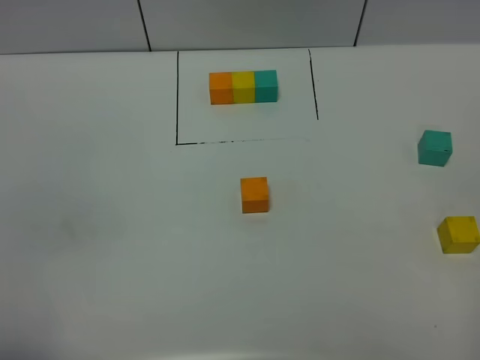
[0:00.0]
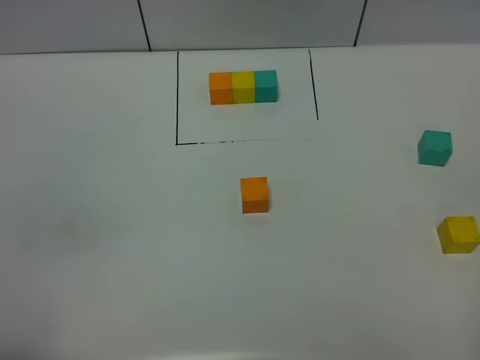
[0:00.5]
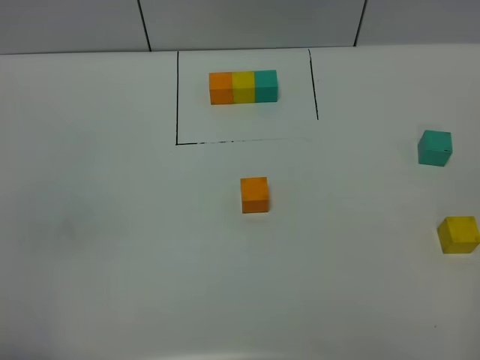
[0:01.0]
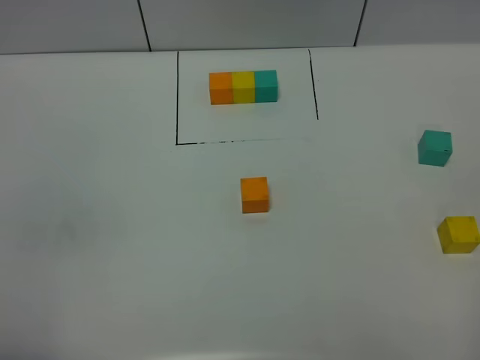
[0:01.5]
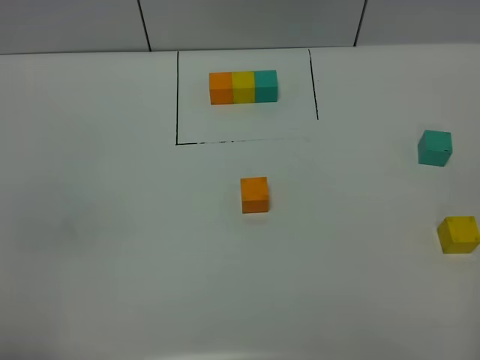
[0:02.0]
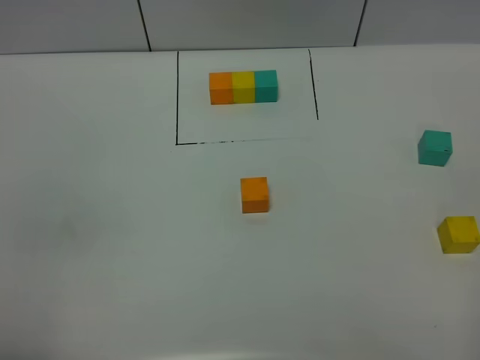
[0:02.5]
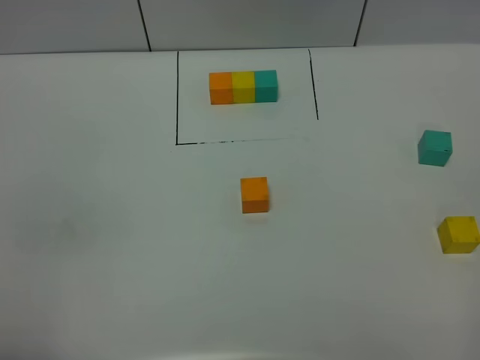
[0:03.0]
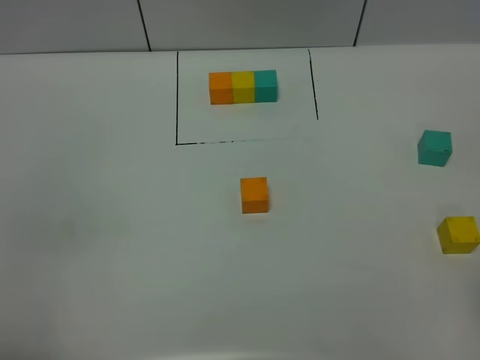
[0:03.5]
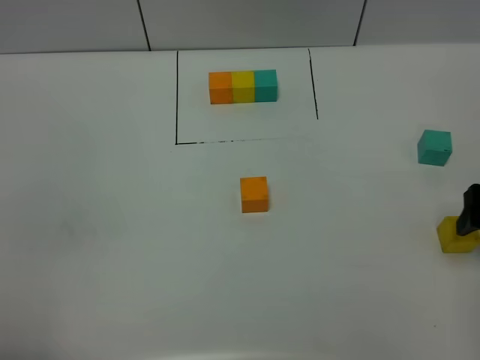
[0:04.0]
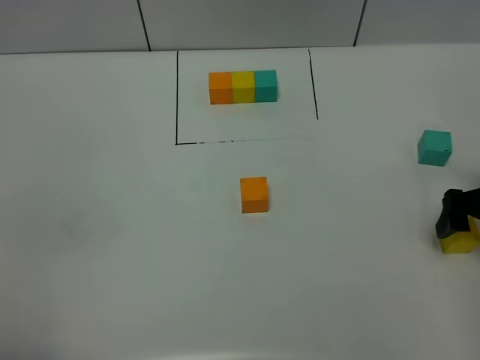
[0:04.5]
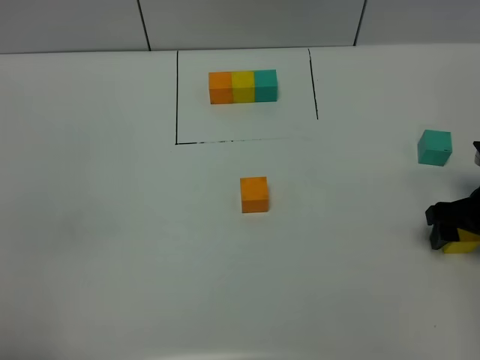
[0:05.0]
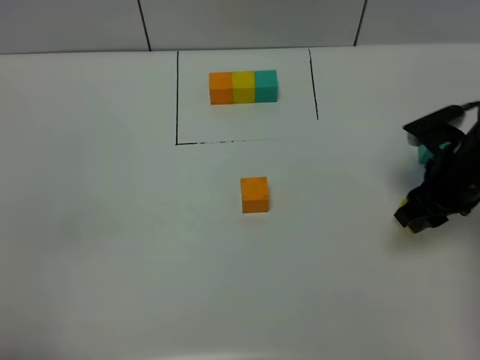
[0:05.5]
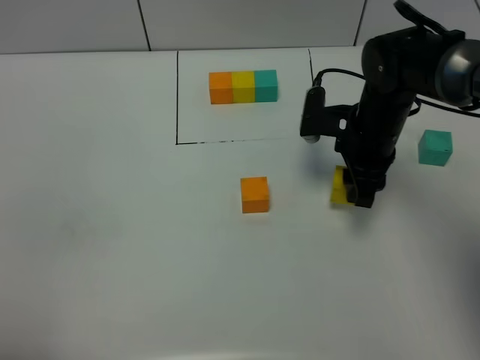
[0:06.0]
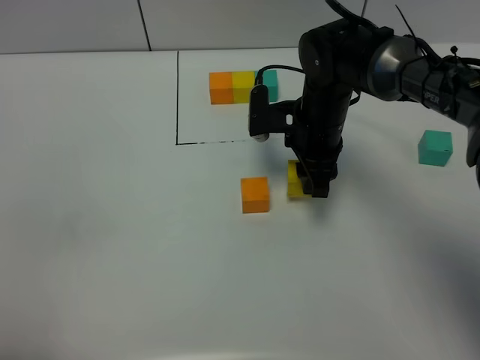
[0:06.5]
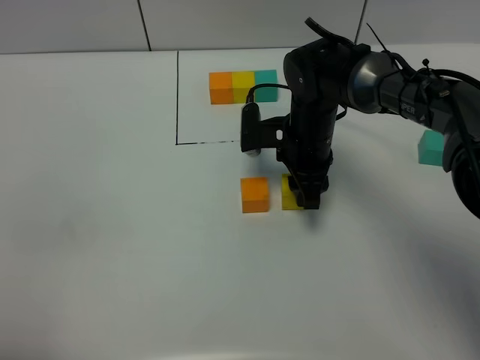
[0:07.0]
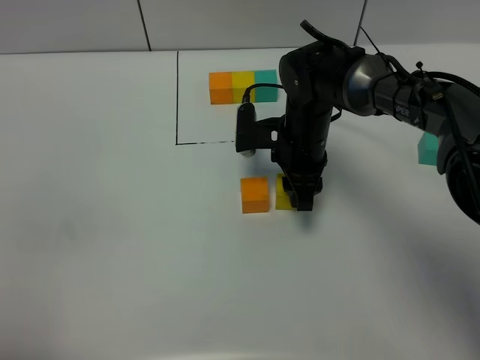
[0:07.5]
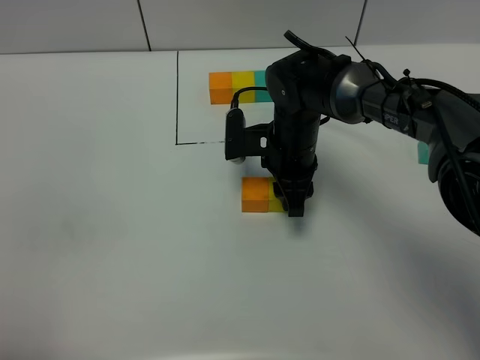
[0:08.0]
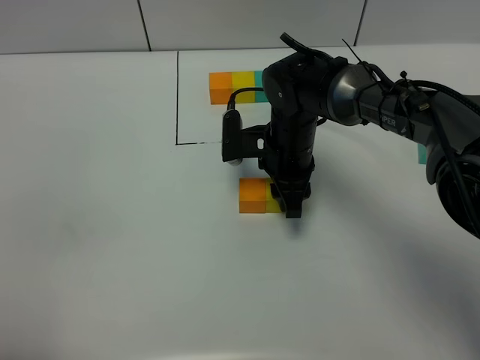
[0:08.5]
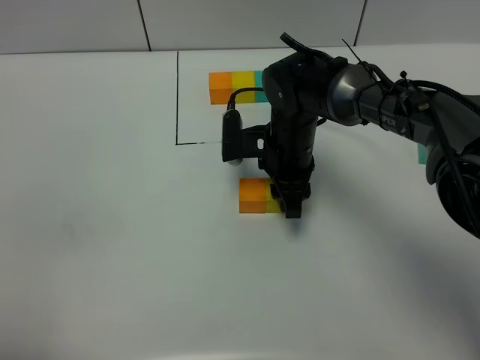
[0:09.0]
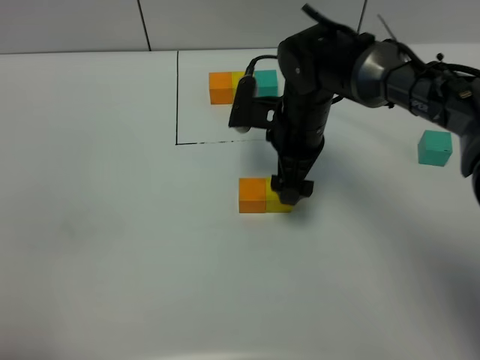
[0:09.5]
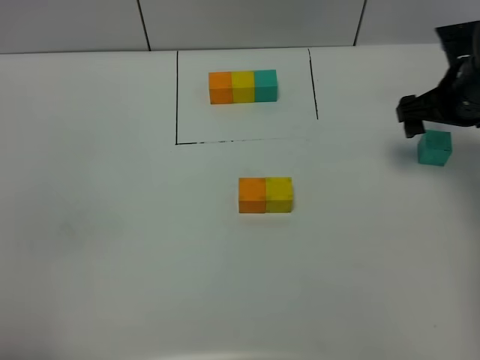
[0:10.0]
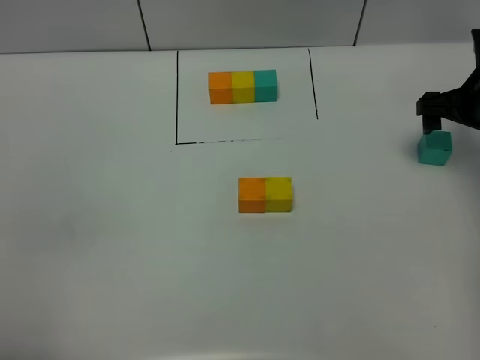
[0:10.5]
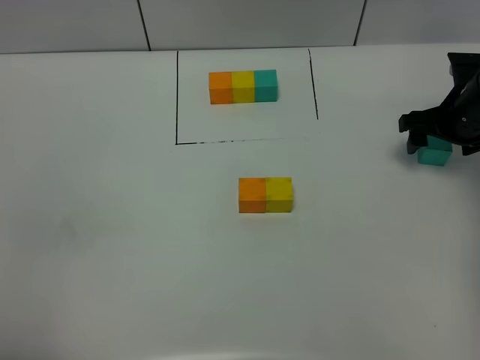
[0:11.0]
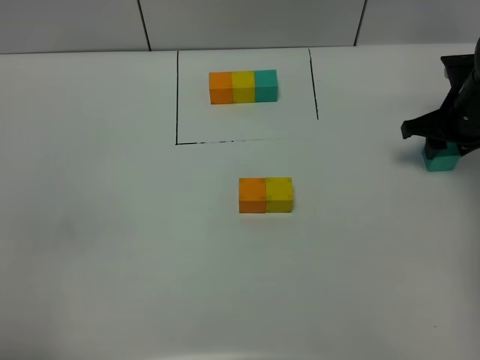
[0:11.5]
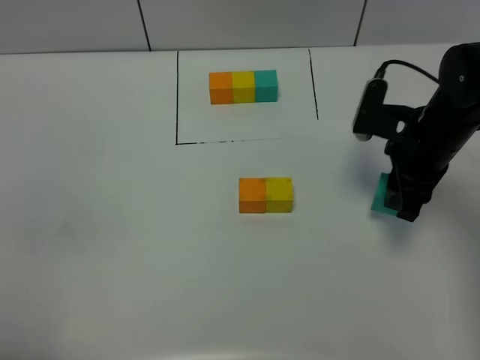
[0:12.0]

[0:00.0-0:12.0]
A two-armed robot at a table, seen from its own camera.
Task of the whole recording: According to the building block template in front, assemble the scattered blocks together.
Step, 0:00.0 to 0:09.0: Put the yellow build block on the right of the orange build block.
0:02.0 to 0:04.0: The right gripper is displaced forward by roughly 25 cm.
0:04.0 to 0:06.0: The right gripper heads to the left and forward, covering roughly 20 cm, and closes.
0:06.0 to 0:08.0: The right gripper shifts about 10 cm to the left.
0:08.0 to 0:10.0: The right gripper is displaced to the right by approximately 20 cm, and opens its fingers.
0:10.0 to 0:12.0: The right gripper is displaced to the left and backward by roughly 10 cm, and closes up.

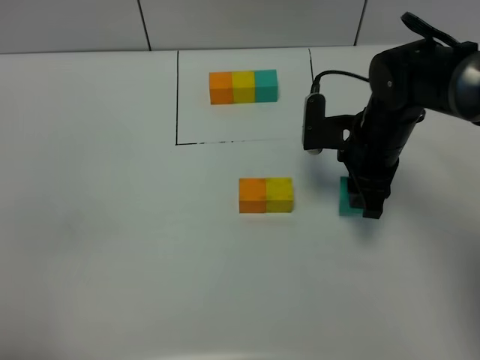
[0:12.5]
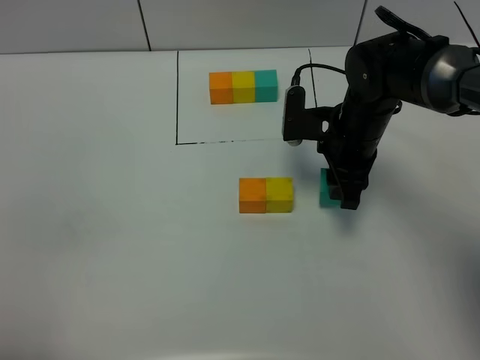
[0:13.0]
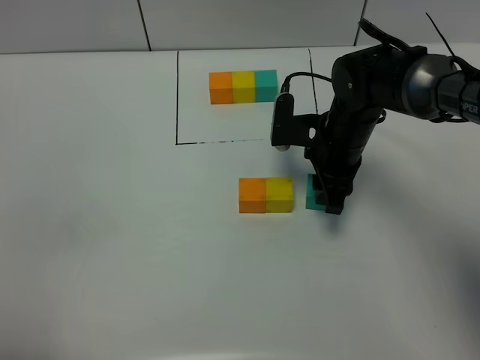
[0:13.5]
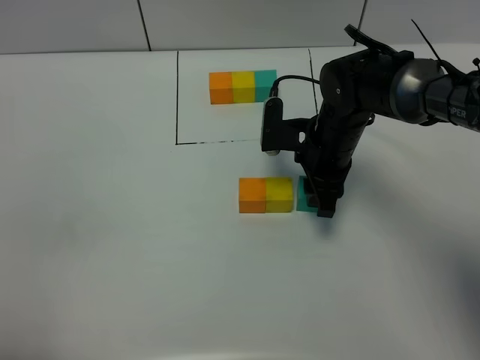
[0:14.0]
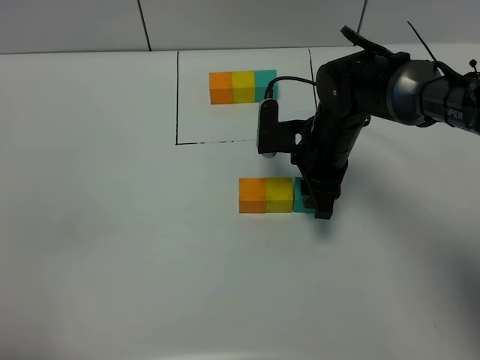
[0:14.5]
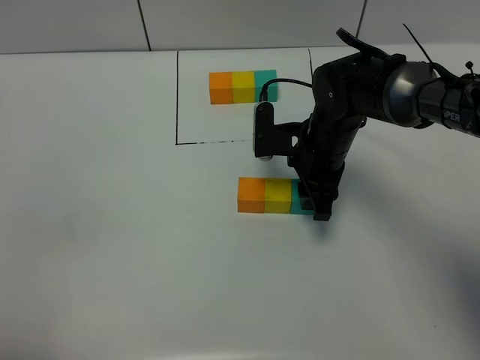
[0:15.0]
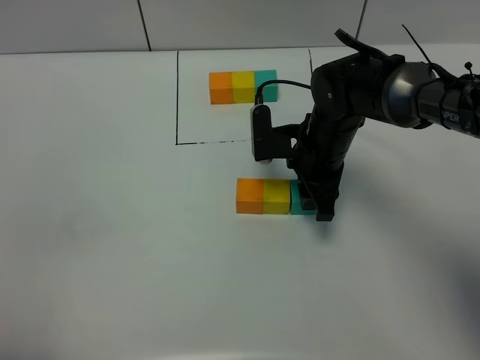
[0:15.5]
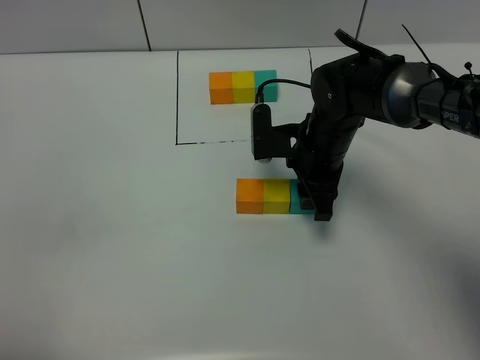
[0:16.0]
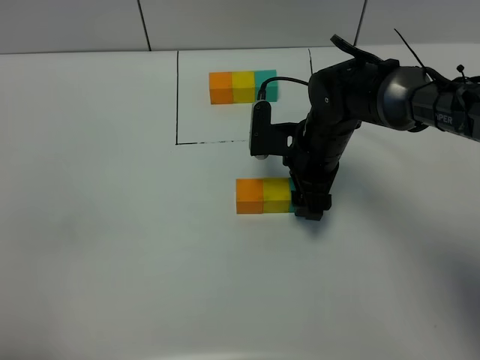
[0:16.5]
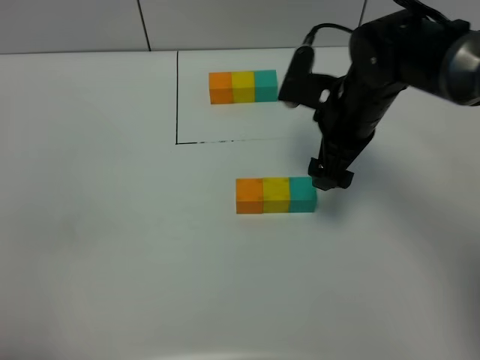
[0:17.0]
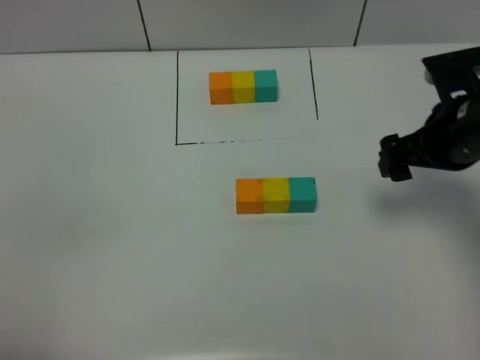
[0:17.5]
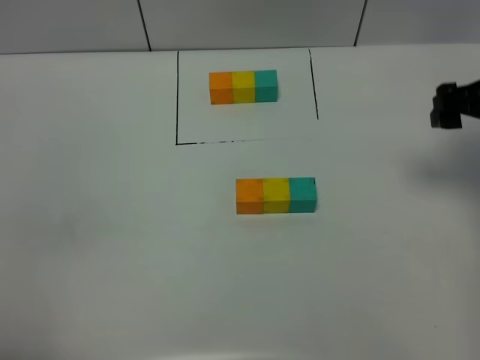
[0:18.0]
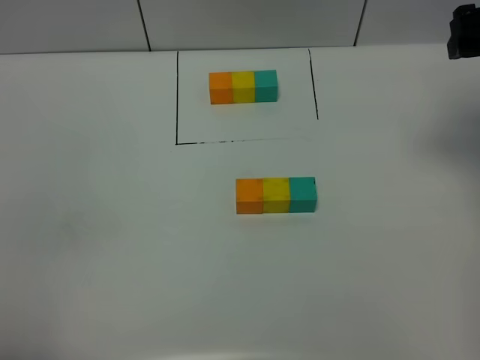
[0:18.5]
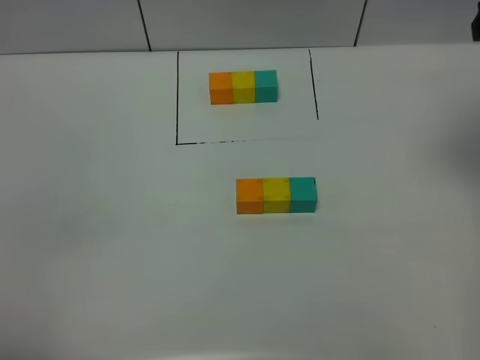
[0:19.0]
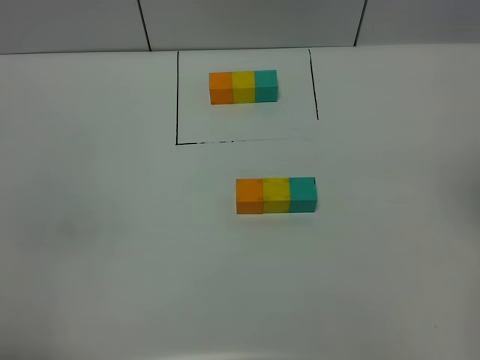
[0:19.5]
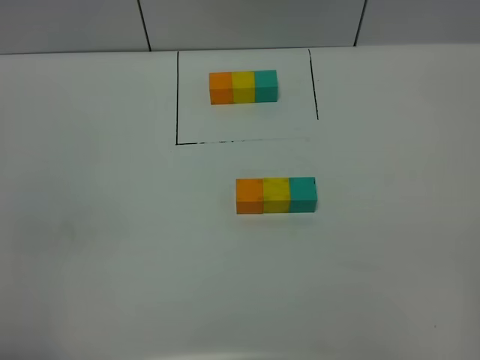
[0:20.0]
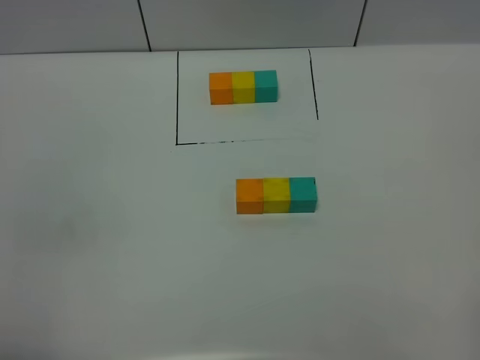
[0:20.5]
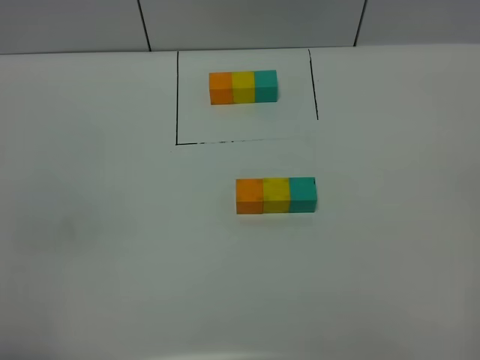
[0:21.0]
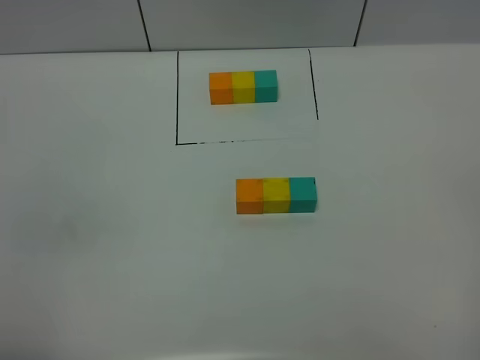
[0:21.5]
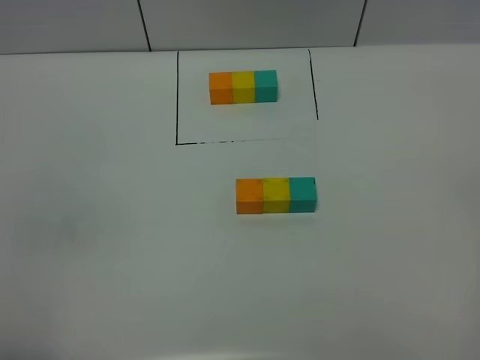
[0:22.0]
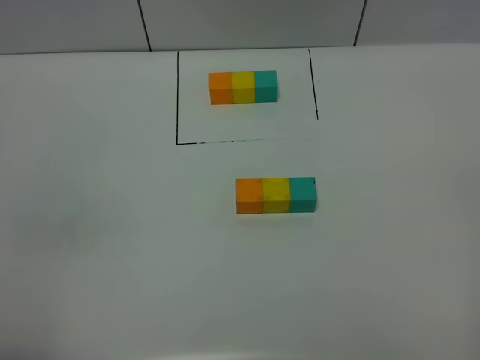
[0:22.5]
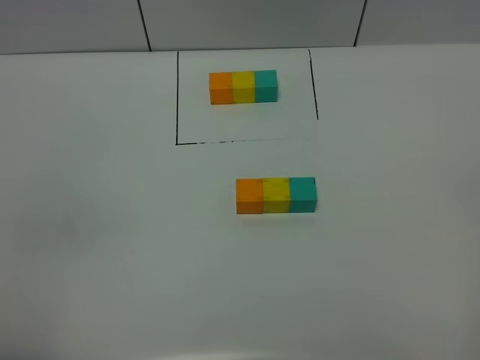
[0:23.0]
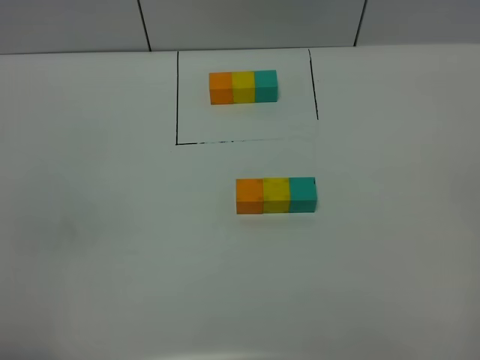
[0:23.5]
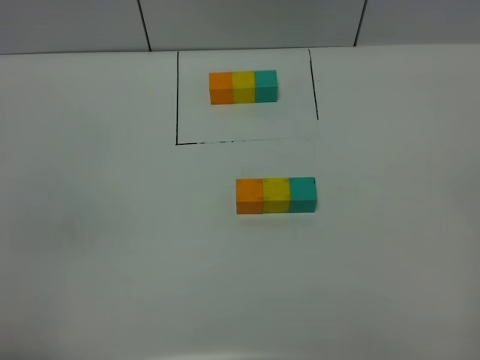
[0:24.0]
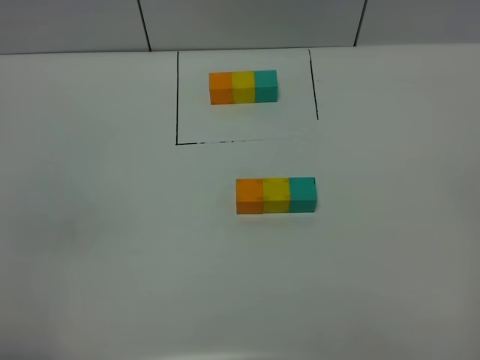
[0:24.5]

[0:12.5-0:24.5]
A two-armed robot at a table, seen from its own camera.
Task of the whole recording: According to the building block template in front, assemble the scattered blocks together.
Step, 0:12.5 to 0:16.5: Put the green build block on the right of the yellow build block.
0:12.5 to 0:14.5: The right gripper moves to the left, approximately 5 cm.
0:14.5 to 0:16.5: The right gripper opens up.
0:16.5 to 0:18.5: The right gripper moves to the right and upward, about 30 cm, and opens.
0:18.5 to 0:20.5: The right gripper shifts some 35 cm backward.
0:22.5 to 0:24.5: Both grippers stay about where they are.
